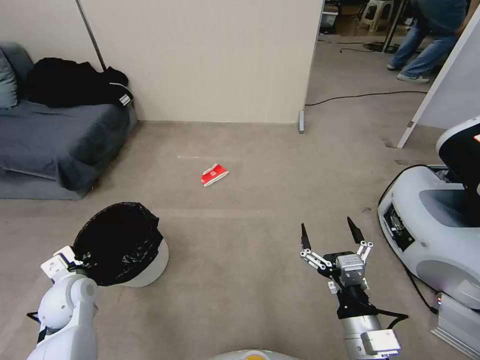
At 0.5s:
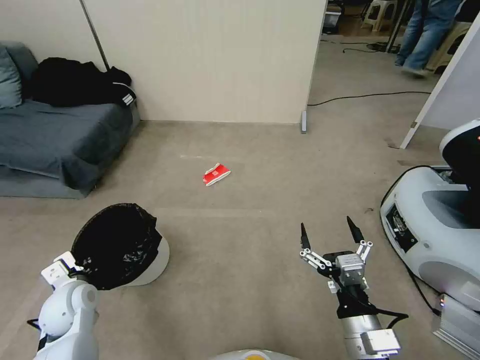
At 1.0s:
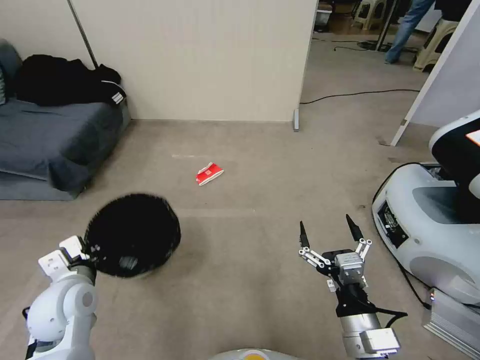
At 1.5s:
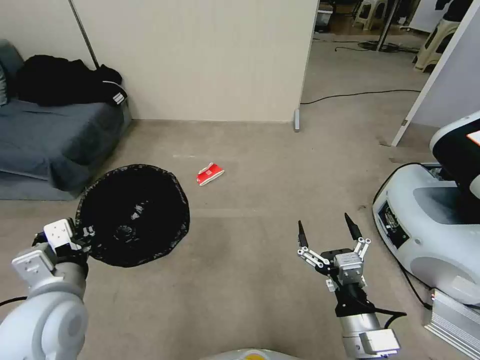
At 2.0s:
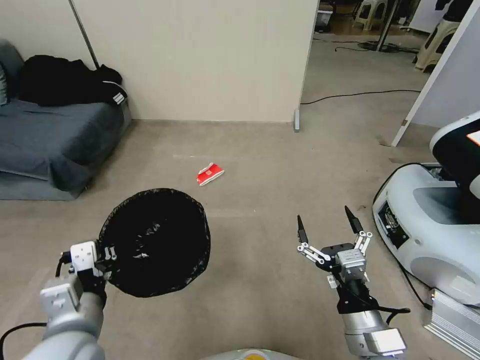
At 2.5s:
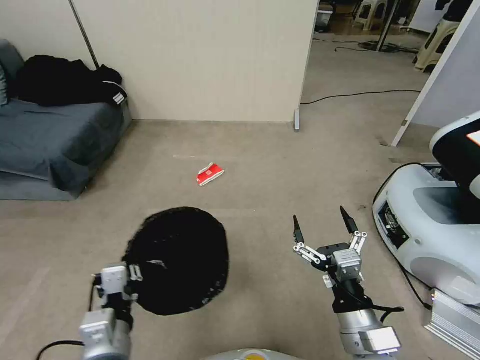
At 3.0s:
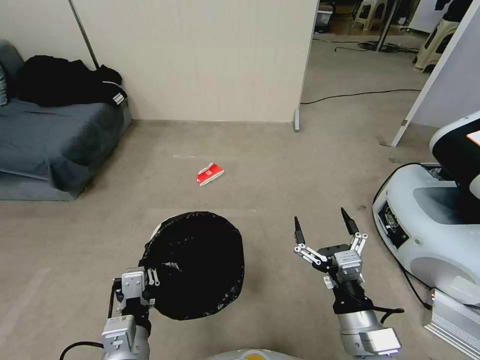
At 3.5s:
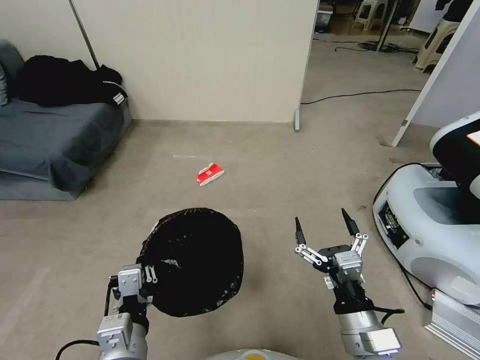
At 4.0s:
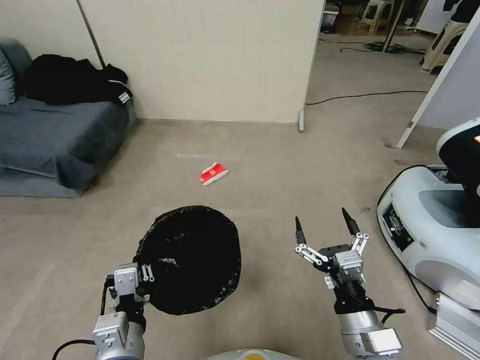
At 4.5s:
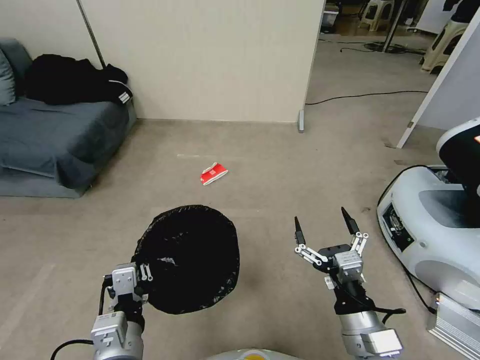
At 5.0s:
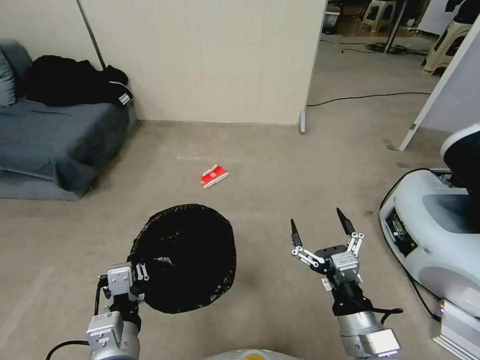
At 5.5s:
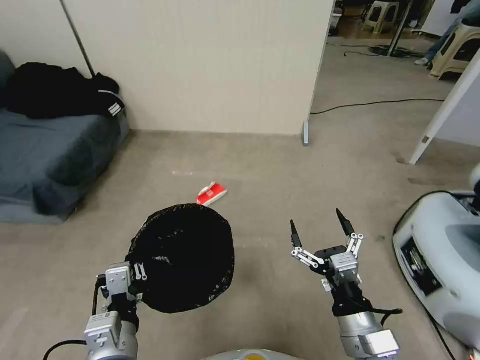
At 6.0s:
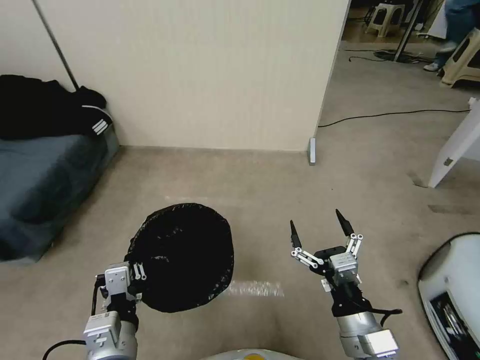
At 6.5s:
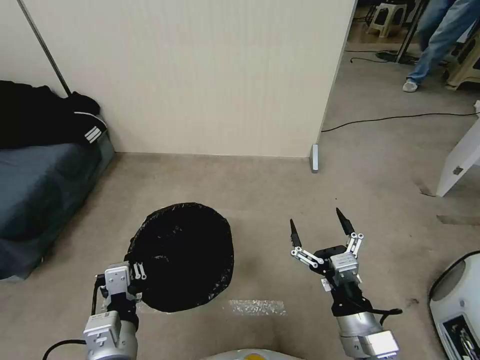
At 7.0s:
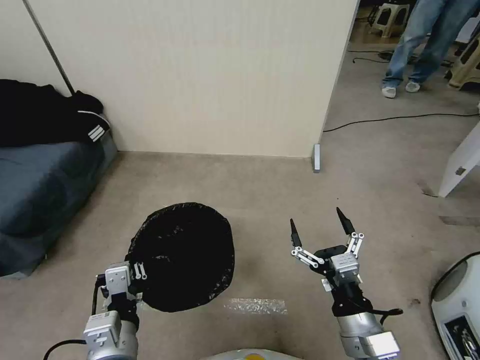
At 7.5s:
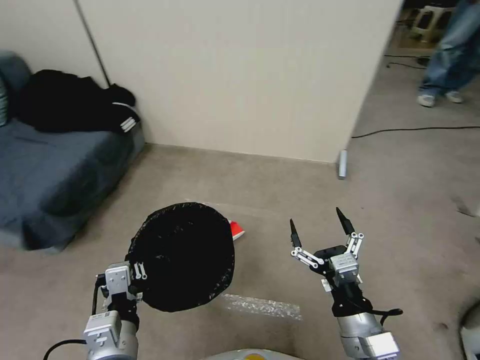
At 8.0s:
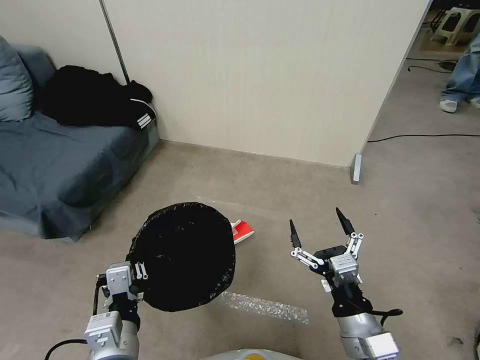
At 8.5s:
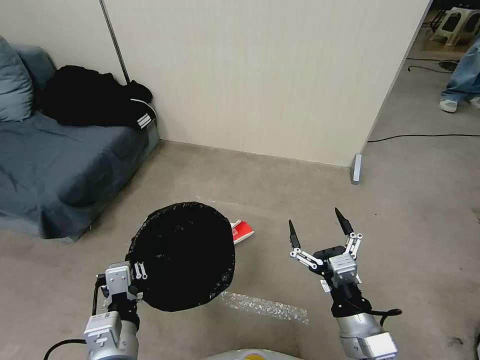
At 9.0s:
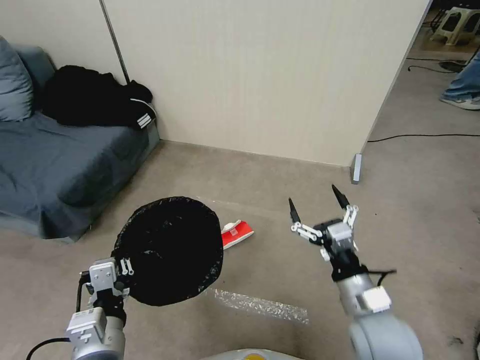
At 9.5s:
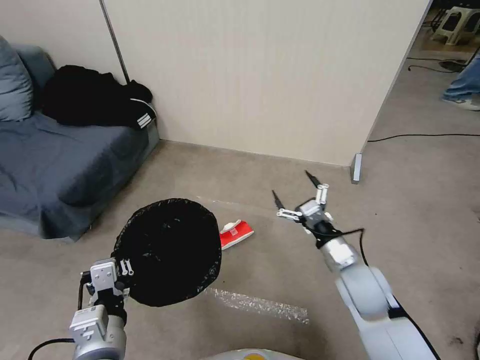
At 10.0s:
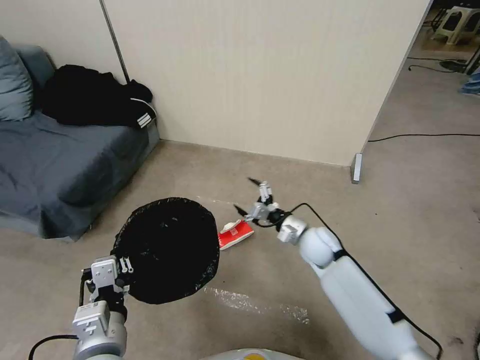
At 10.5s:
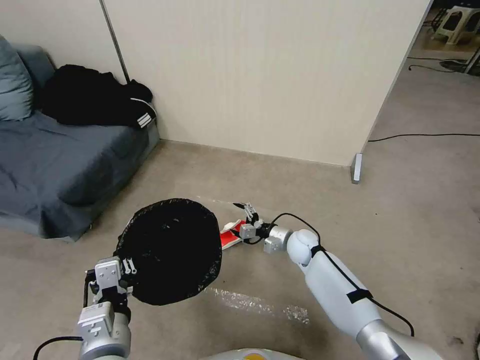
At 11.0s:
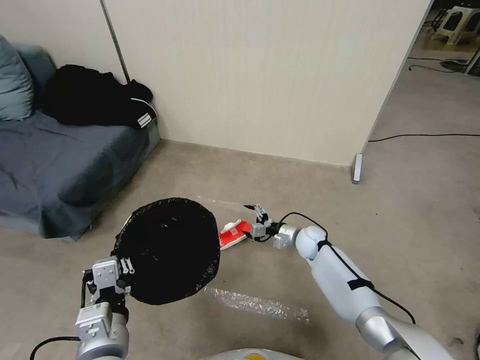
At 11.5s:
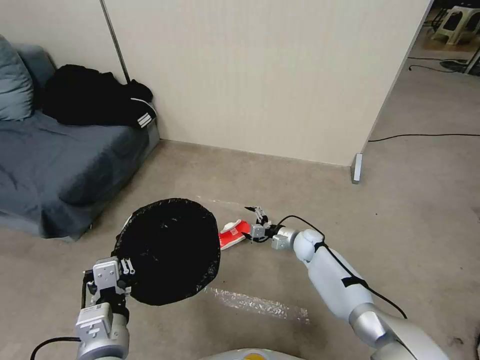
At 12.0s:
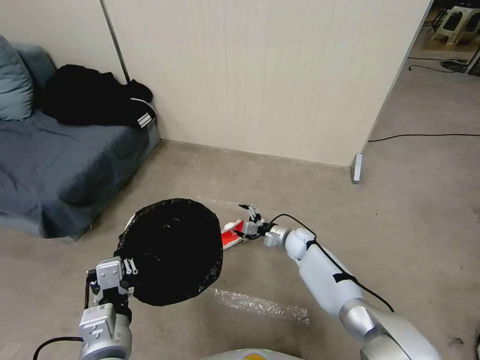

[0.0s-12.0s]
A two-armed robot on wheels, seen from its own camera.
Task of the whole recording: Pick up the trash bin, then pick up the garbage from the floor and place it into the trash bin.
0.0s to 2.0s: The left gripper goes roughly 25 cm upward, to the right and backward.
2.0s to 4.0s: The left gripper moves to the right and downward, about 10 cm.
8.0s to 10.0s: The right gripper is displaced forward by roughly 30 cm.
10.0s to 12.0s: The right gripper shifts about 15 cm downward and forward.

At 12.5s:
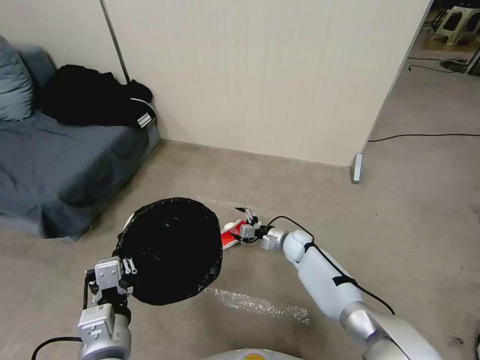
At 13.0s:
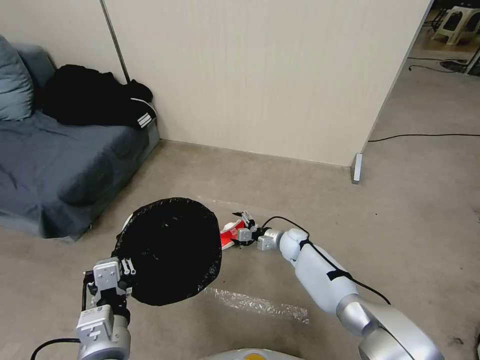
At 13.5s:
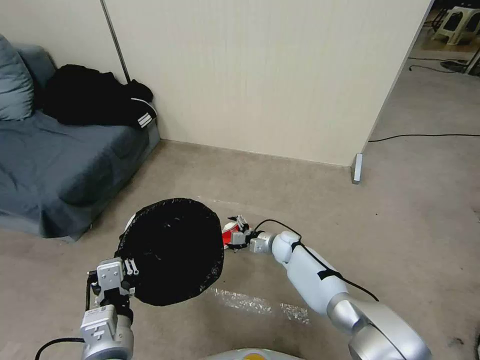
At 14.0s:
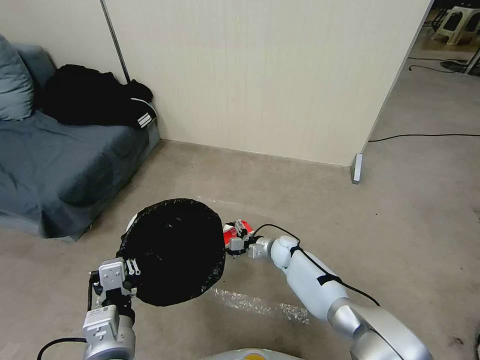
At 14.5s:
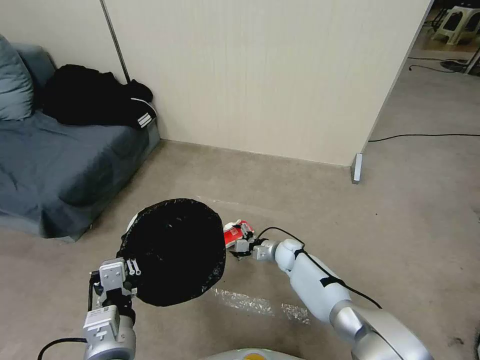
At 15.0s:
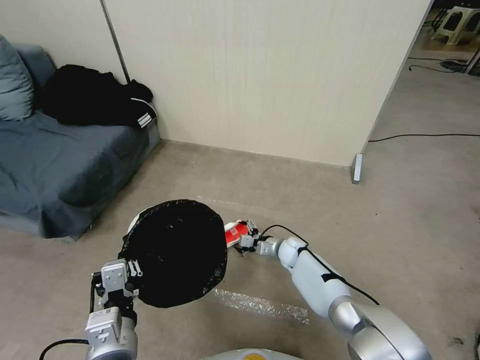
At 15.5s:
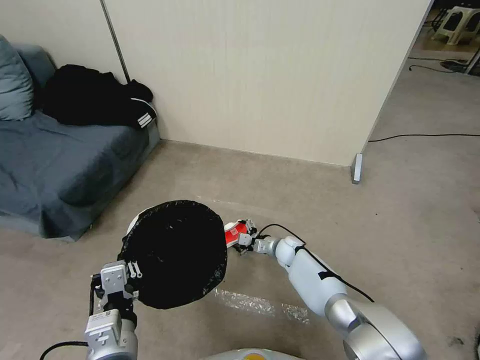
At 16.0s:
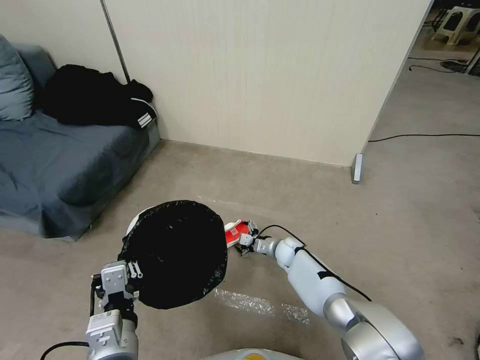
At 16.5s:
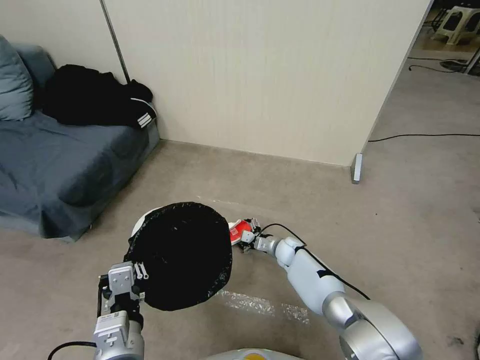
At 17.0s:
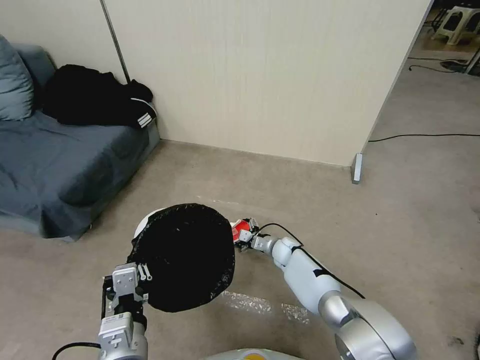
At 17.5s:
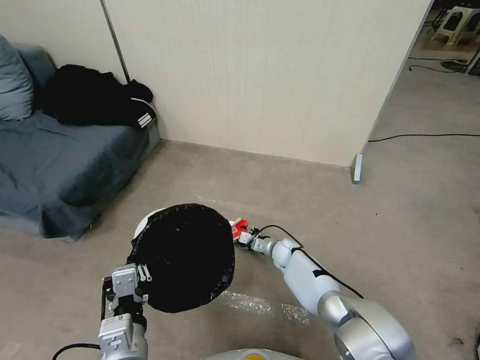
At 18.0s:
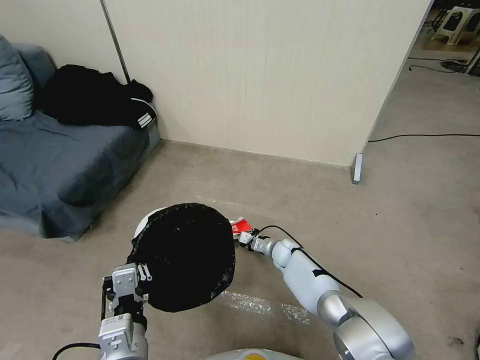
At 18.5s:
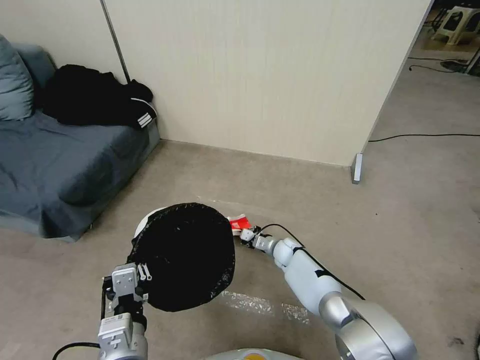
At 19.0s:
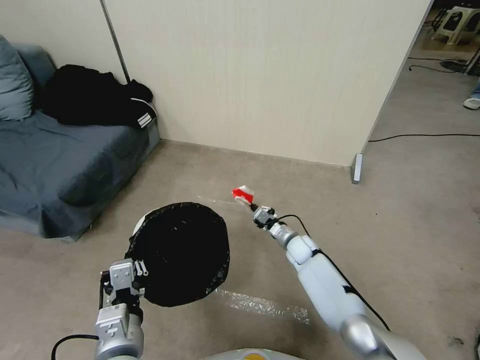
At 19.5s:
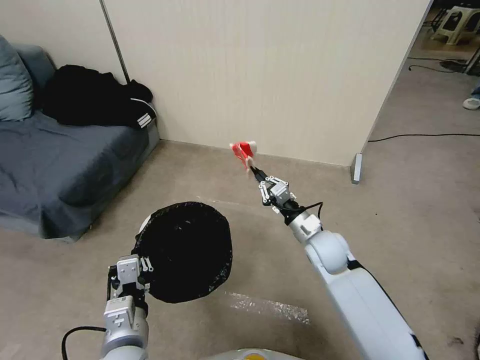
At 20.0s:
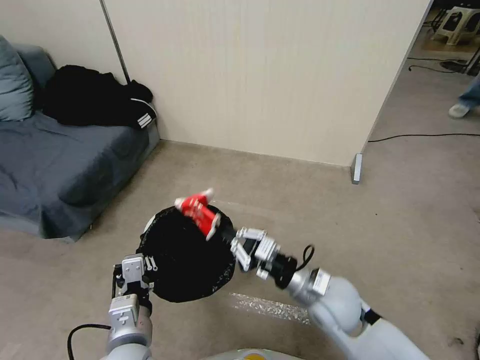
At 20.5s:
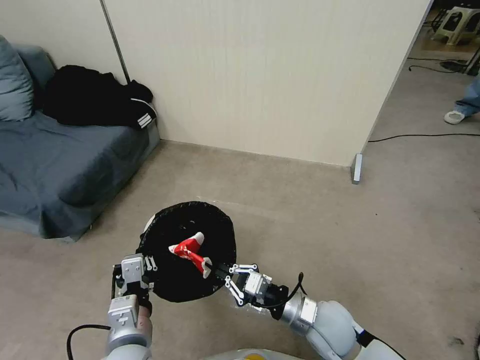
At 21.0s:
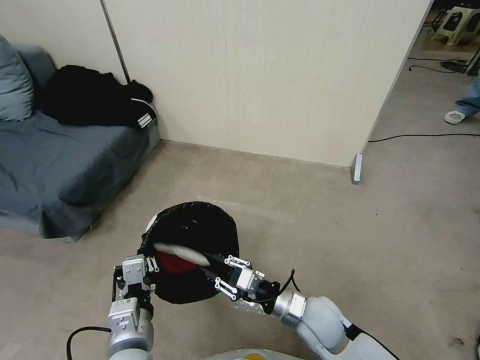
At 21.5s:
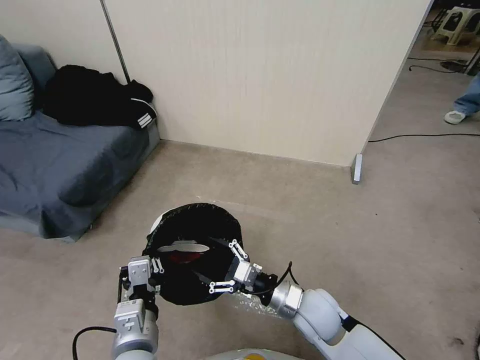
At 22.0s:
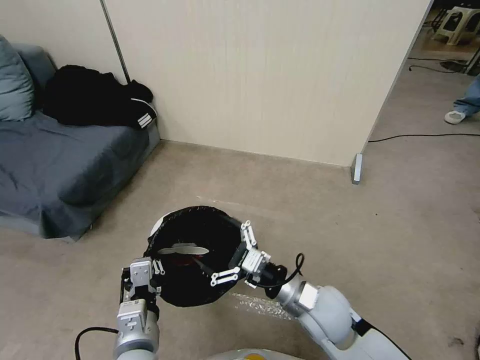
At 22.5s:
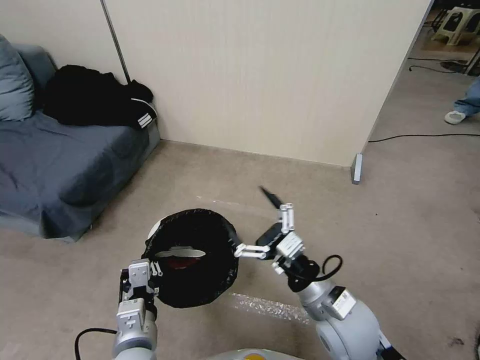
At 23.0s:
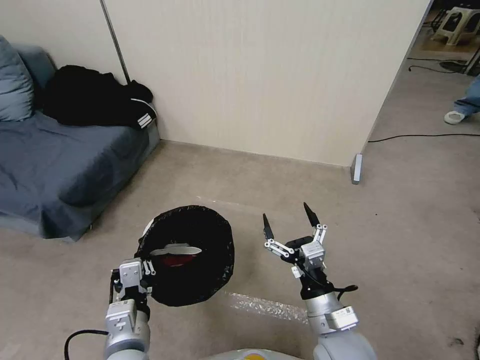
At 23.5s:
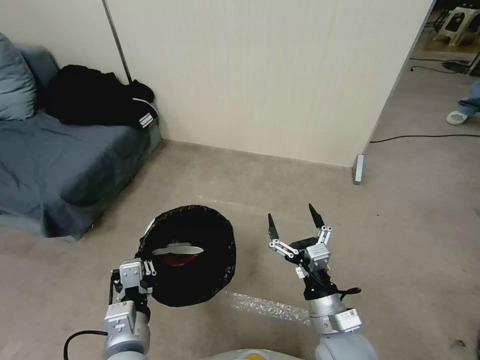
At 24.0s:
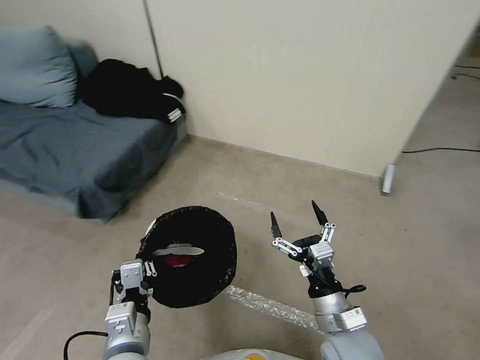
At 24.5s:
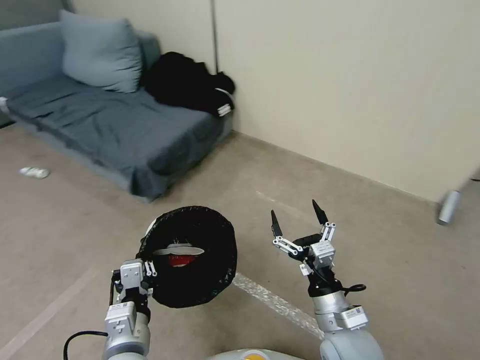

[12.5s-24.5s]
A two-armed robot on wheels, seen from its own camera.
Task of the whole recording: Pick up the trash bin, then pick up the garbage from the floor and place it into the trash bin.
12.5s to 14.5s: The grippers stay close to where they were, moving slightly.
14.5s to 16.5s: The grippers stay close to where they were, moving slightly.
16.5s to 18.5s: The right gripper closes.
18.5s to 20.5s: The right gripper travels backward and upward by about 30 cm.
20.5s to 22.5s: The right gripper moves upward, some 10 cm, and opens up.
22.5s to 24.5s: The right gripper moves about 5 cm.

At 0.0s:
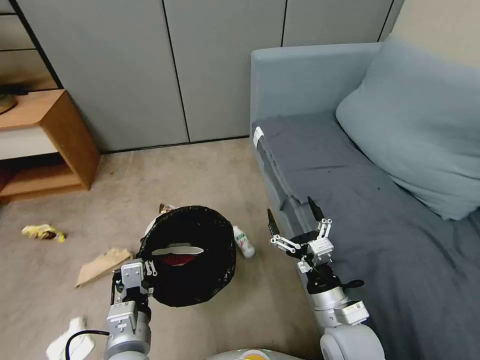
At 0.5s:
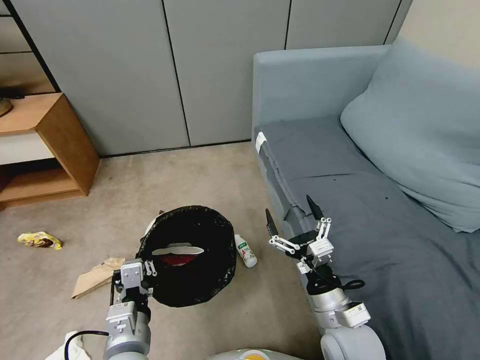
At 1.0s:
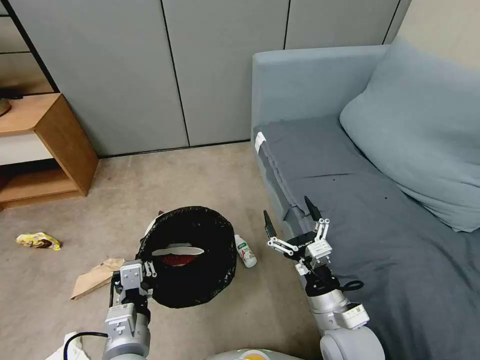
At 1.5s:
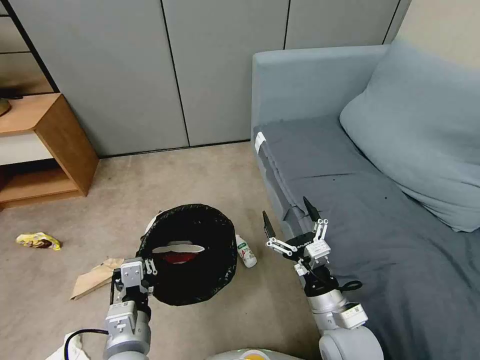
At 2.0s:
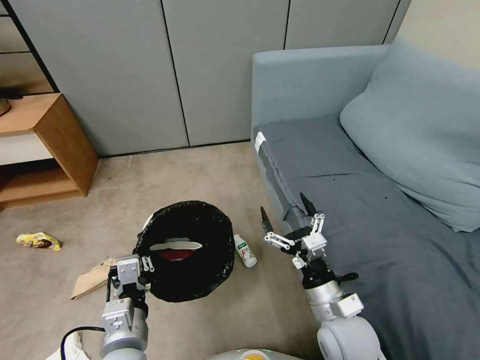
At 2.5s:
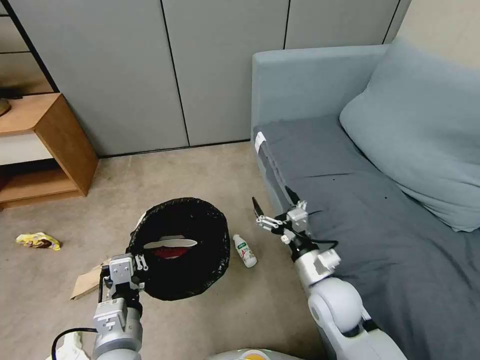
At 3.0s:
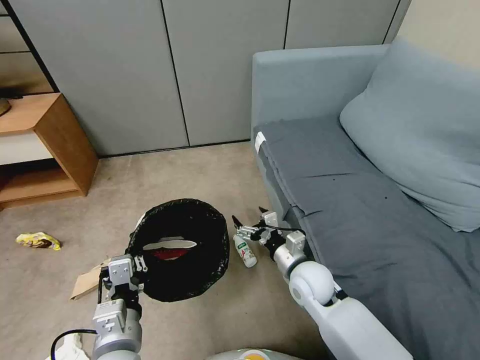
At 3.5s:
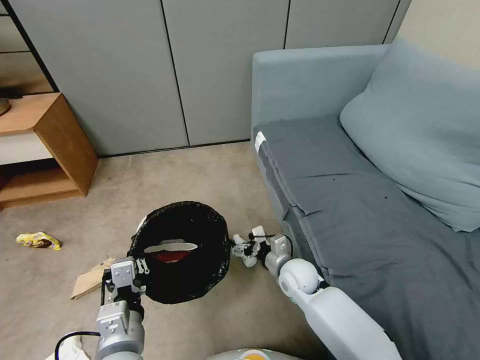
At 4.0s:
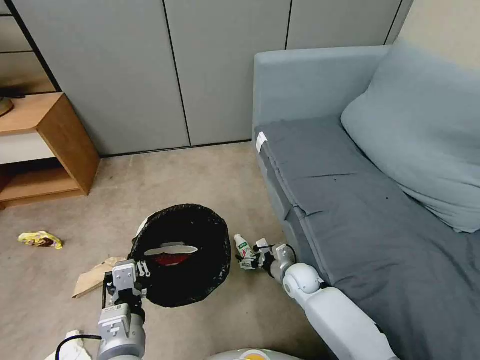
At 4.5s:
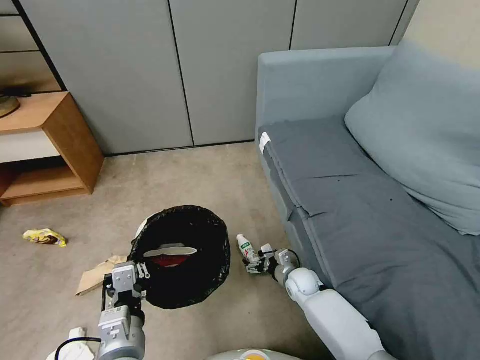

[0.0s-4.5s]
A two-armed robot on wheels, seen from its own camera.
Task of the whole recording: Pick up the trash bin, then pick up the garbage from the floor and place it into the trash bin.
0.0s to 2.0s: Neither gripper changes place.
2.0s to 4.5s: The right gripper goes roughly 25 cm downward and forward.
